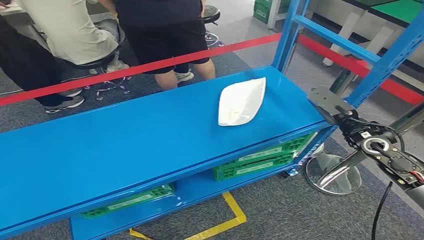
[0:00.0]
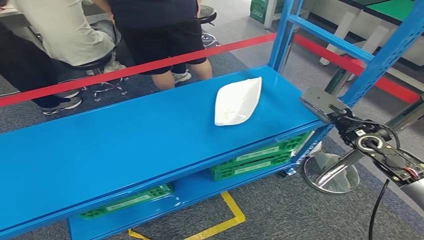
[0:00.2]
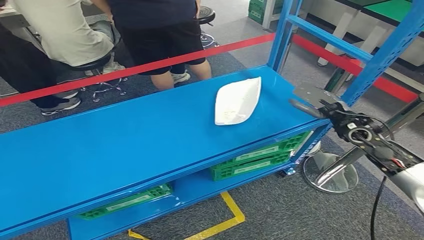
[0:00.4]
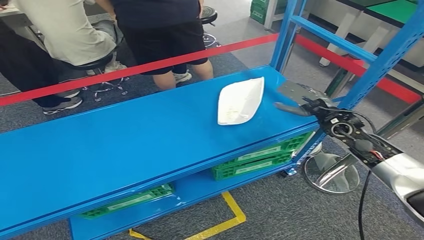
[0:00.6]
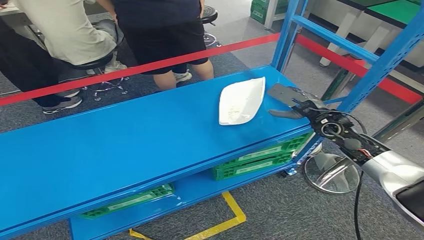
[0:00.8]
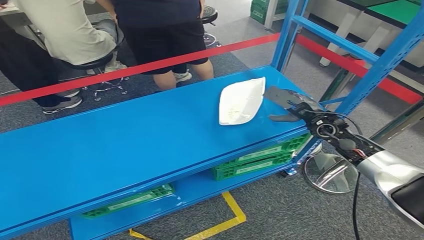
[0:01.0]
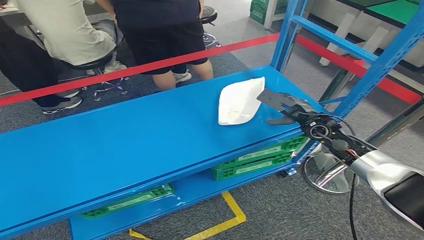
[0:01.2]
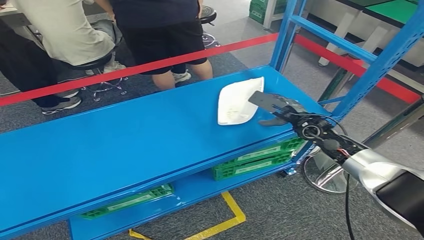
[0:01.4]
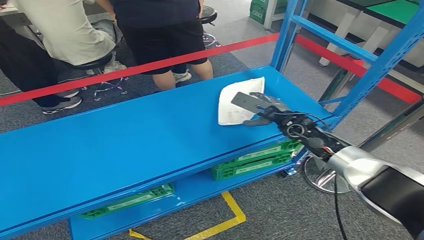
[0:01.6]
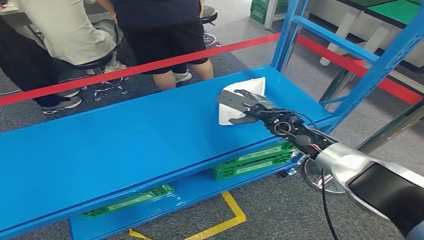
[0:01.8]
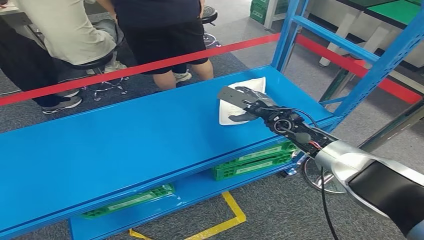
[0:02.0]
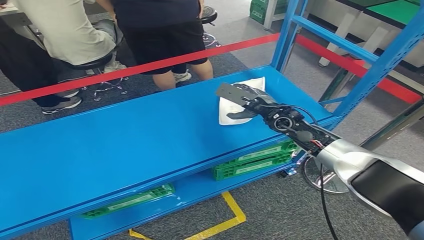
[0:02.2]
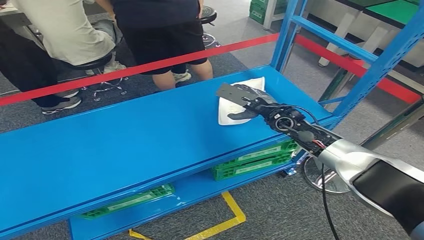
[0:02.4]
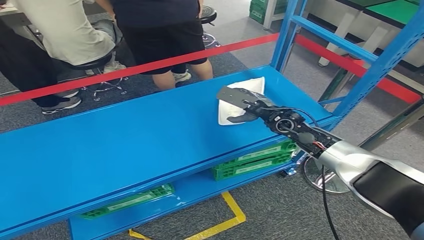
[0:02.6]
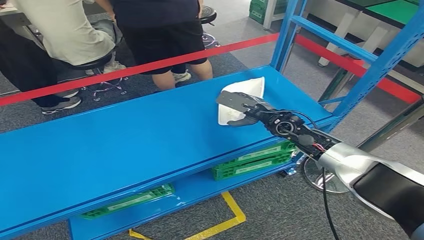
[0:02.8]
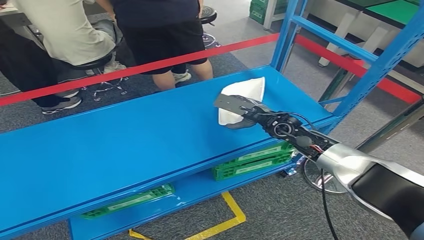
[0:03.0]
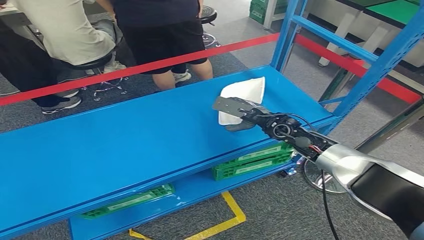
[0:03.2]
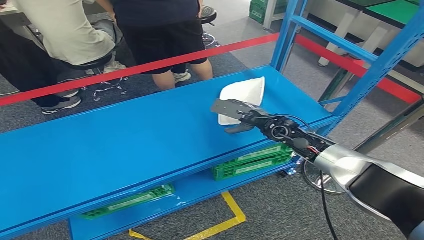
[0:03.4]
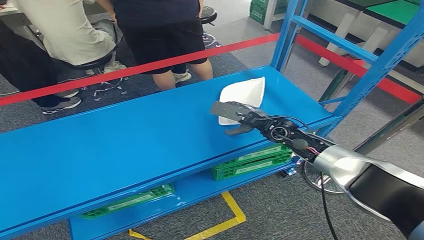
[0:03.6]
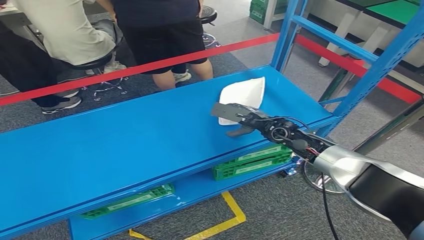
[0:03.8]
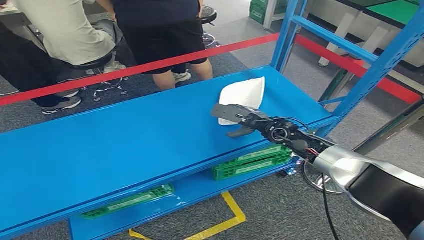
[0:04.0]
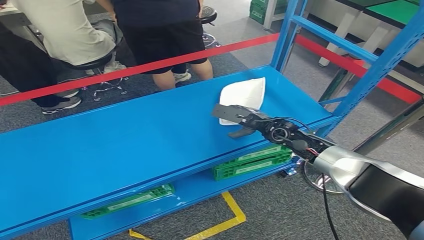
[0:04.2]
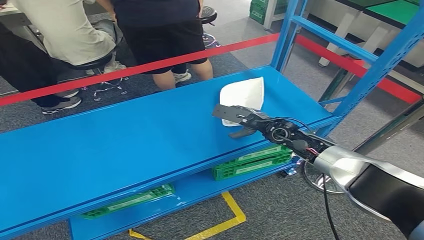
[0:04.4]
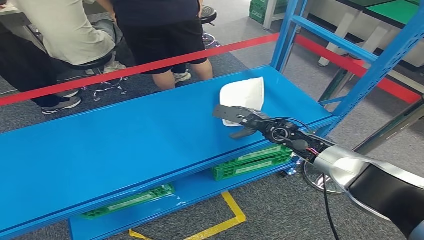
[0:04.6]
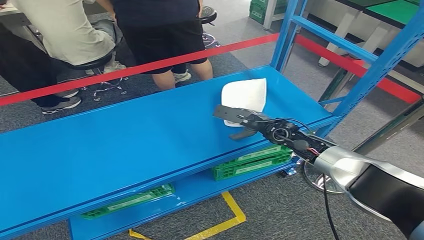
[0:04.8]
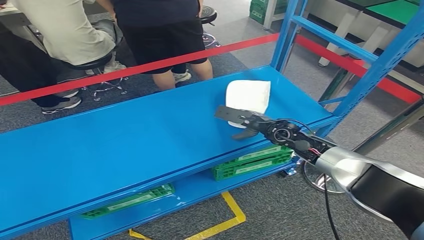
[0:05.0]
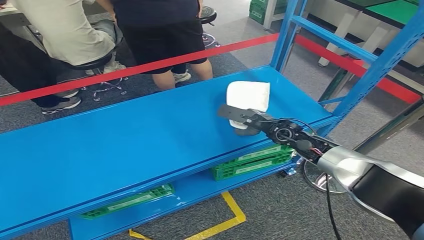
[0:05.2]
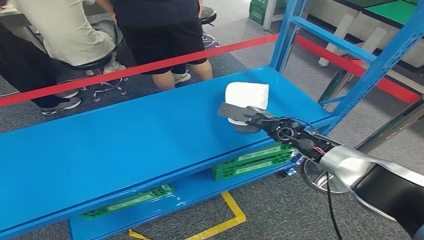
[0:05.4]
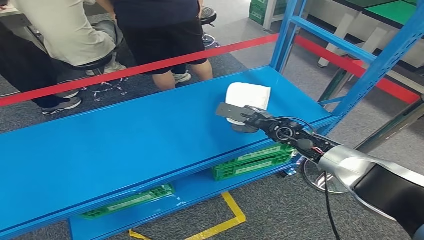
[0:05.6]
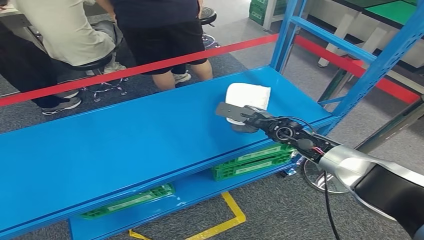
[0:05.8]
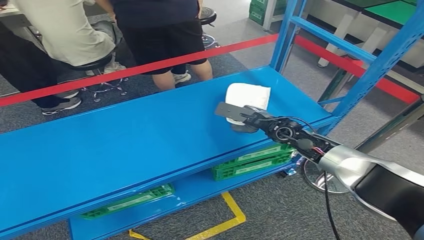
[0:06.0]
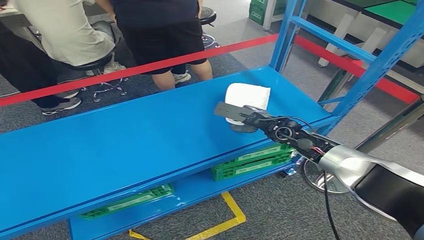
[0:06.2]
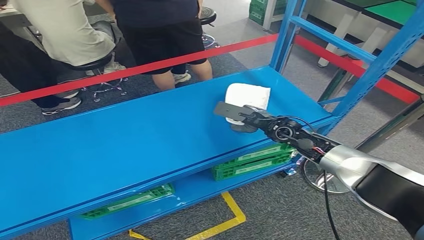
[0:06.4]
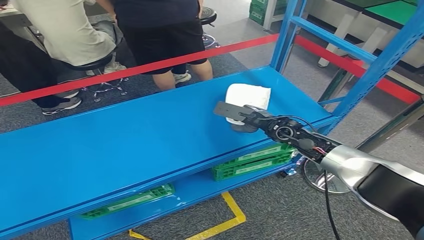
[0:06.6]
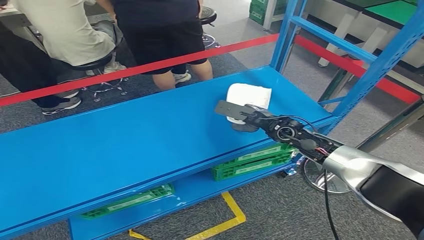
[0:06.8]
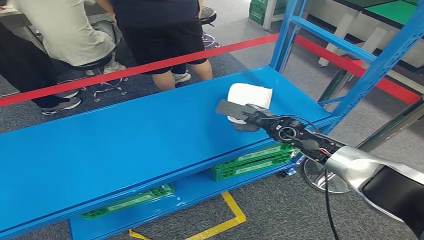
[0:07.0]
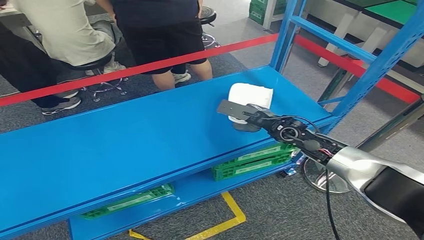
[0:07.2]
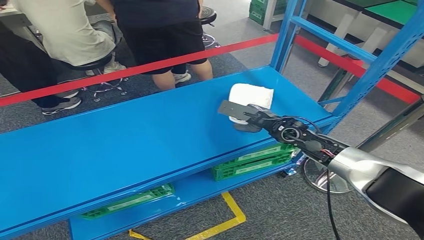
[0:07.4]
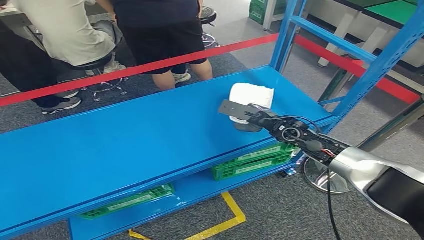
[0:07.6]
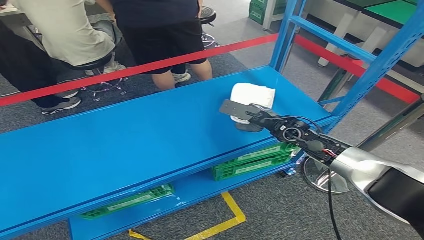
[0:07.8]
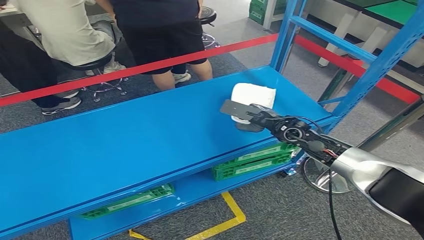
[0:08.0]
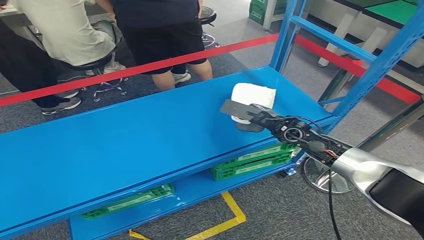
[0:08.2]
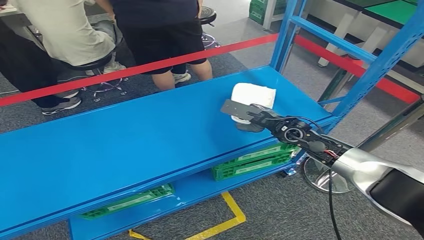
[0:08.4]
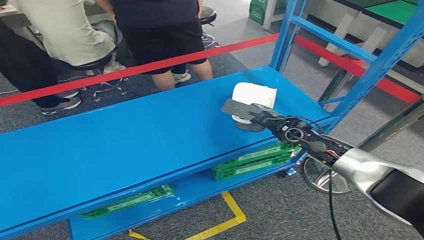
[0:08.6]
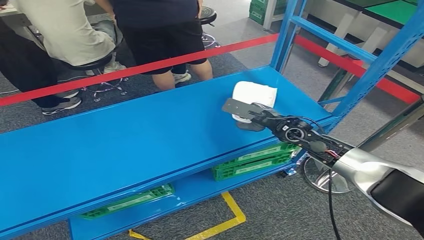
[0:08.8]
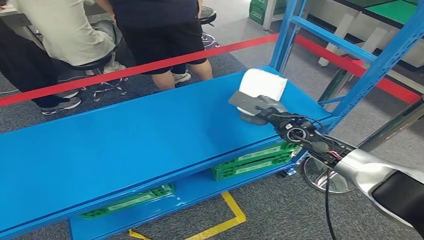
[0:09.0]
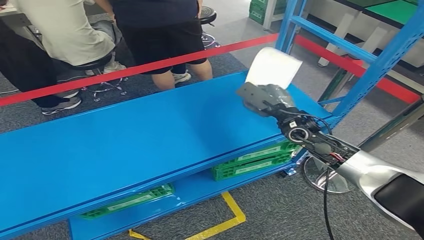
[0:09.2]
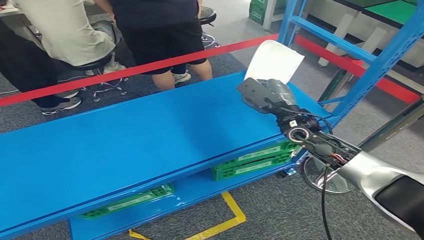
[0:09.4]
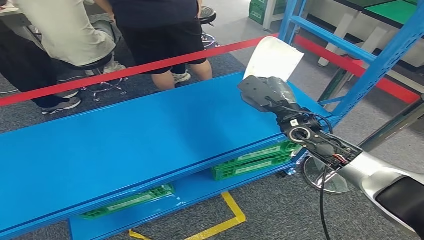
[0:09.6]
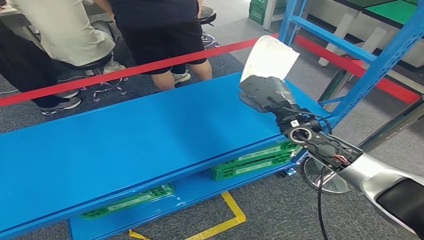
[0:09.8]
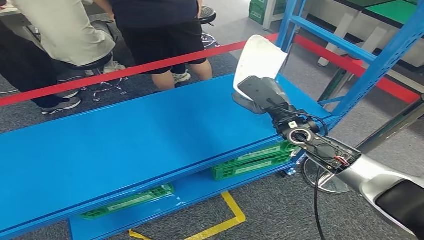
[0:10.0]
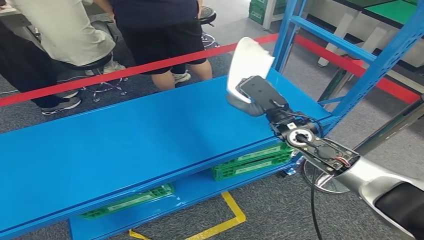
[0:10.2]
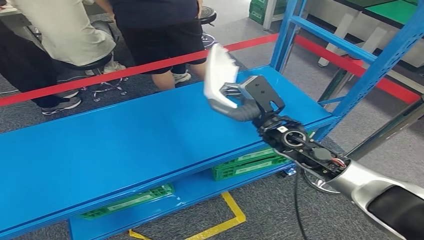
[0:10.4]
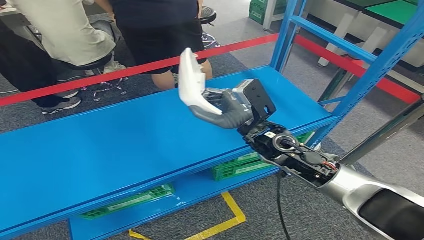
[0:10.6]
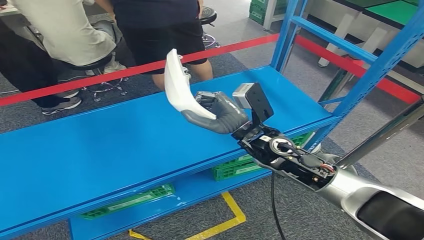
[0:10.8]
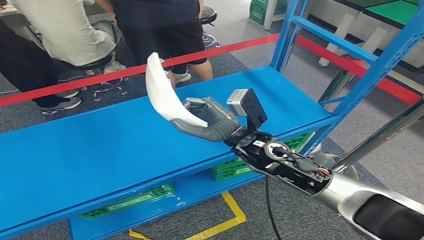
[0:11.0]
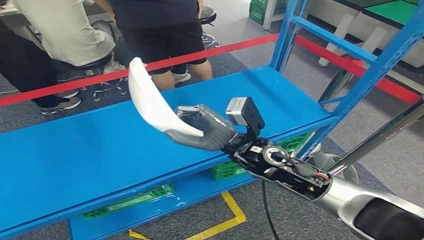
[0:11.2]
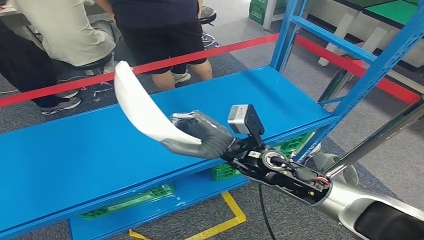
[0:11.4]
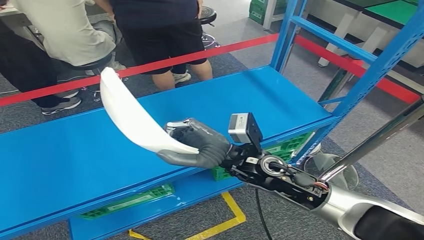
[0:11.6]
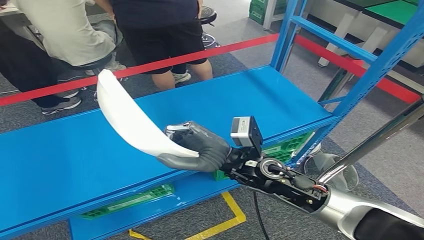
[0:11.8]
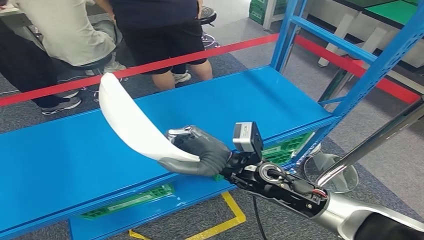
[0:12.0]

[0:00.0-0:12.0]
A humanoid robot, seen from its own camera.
Step, 0:00.0 to 0:11.8: Pick up the small component from the shelf.
0:01.6 to 0:04.4: The hands make only small movements.
0:04.4 to 0:06.0: The two hands keep their place.
0:06.0 to 0:09.0: The hands make only small movements.
0:09.0 to 0:10.4: The right hand ends up about 10 cm from where it was.
0:10.4 to 0:12.0: The right hand is displaced to the left and backward by approximately 15 cm.

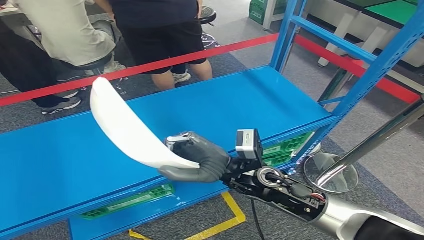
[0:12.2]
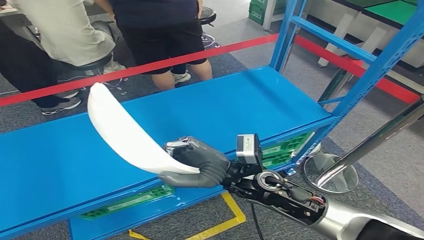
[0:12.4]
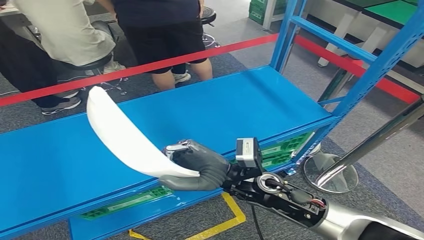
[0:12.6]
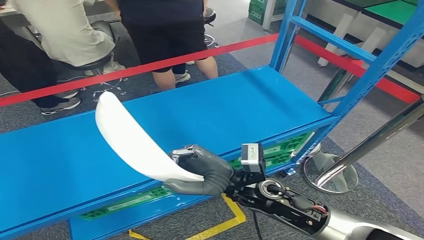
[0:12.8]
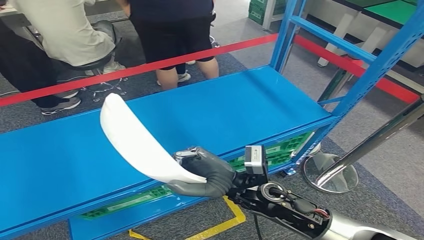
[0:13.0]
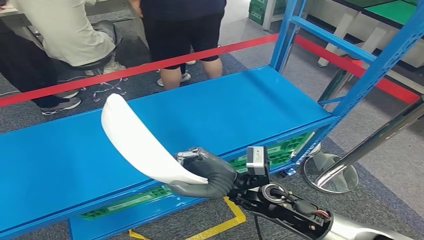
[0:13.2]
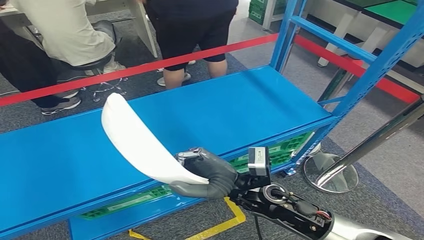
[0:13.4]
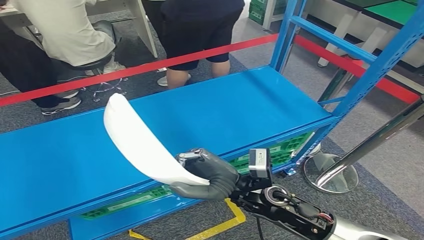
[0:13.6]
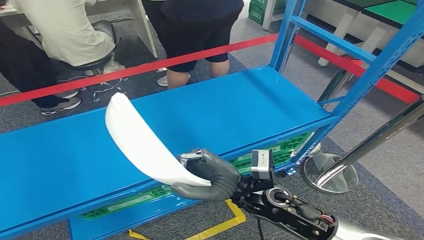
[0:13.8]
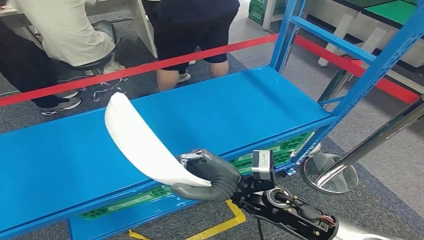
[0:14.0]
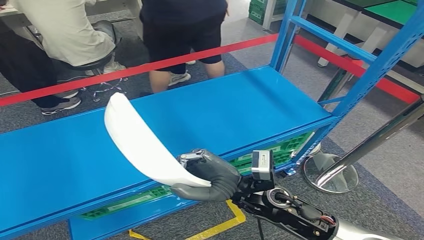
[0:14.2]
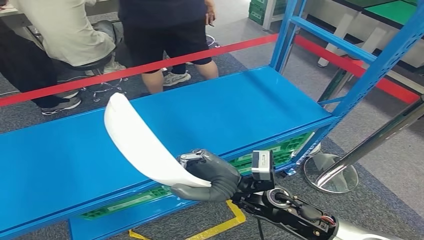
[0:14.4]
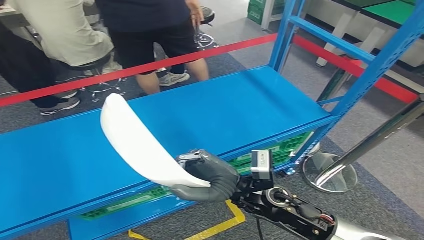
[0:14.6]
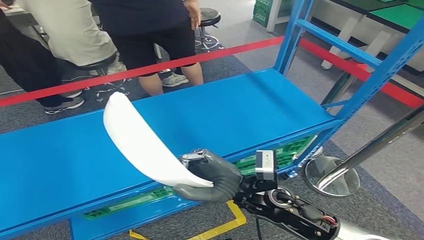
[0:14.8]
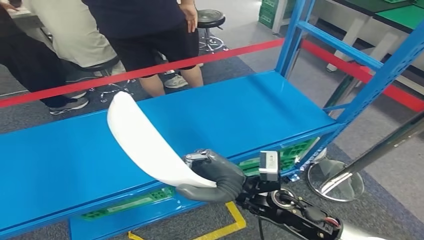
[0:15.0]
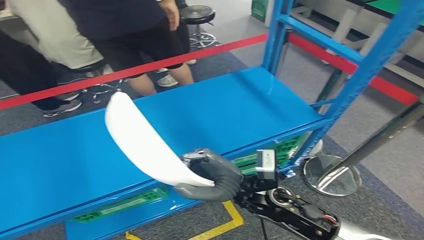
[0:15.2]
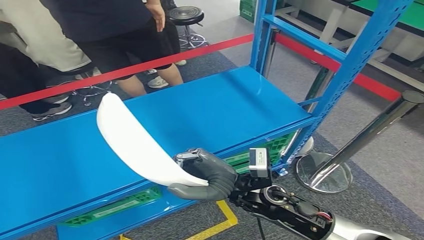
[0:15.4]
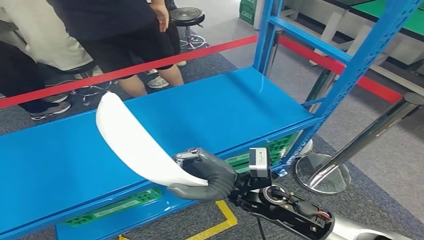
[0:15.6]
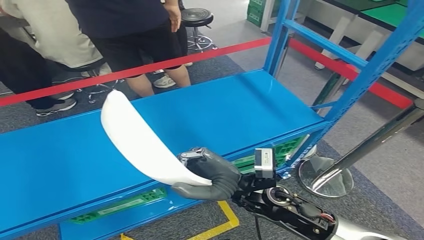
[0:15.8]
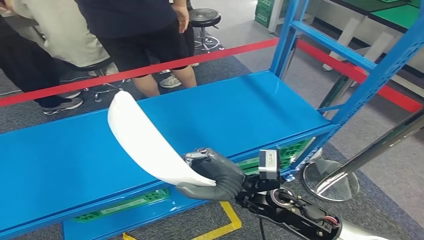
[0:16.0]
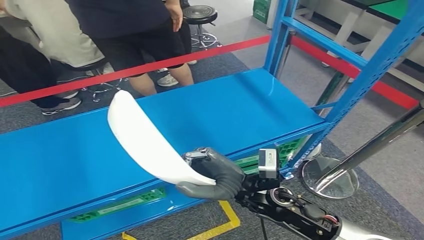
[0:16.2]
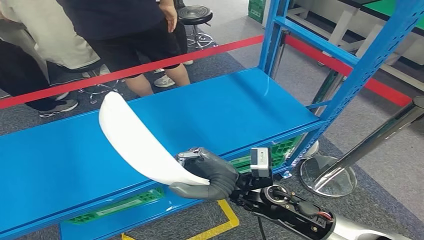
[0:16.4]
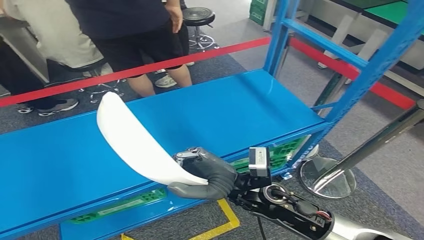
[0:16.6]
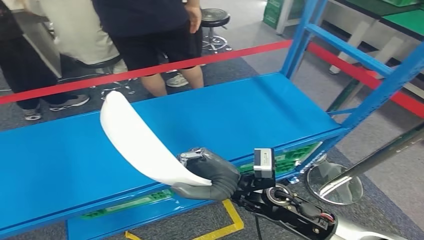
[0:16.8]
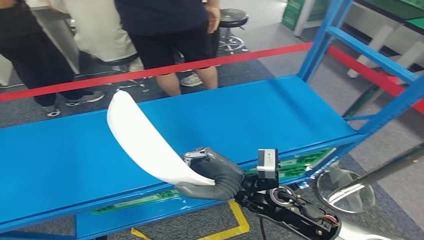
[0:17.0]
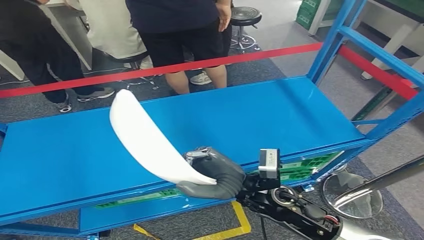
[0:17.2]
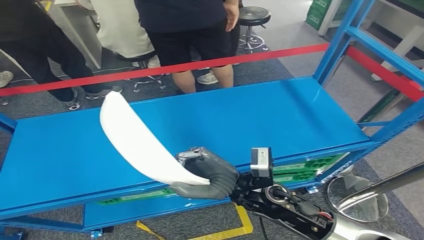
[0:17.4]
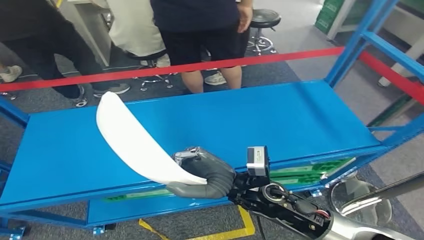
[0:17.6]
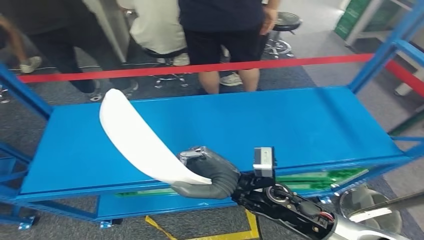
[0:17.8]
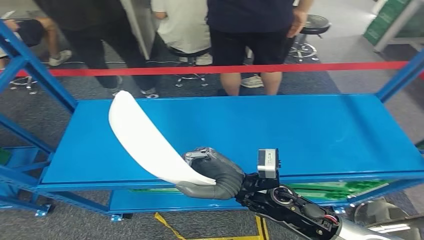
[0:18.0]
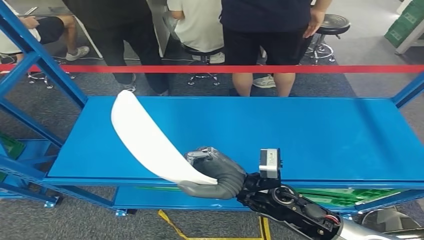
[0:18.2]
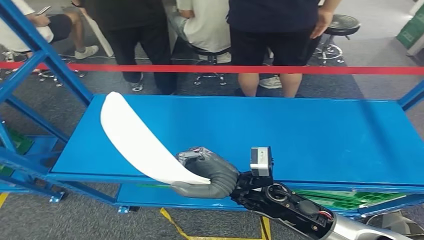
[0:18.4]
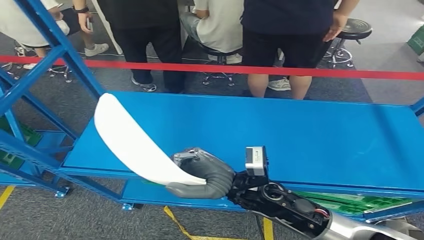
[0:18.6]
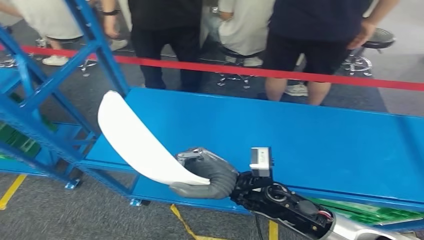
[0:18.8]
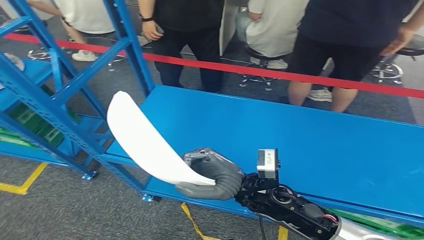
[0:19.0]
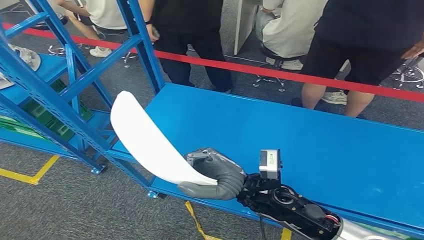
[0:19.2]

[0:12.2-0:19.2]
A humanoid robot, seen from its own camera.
0:12.2 to 0:13.6: The hands make only small movements.
